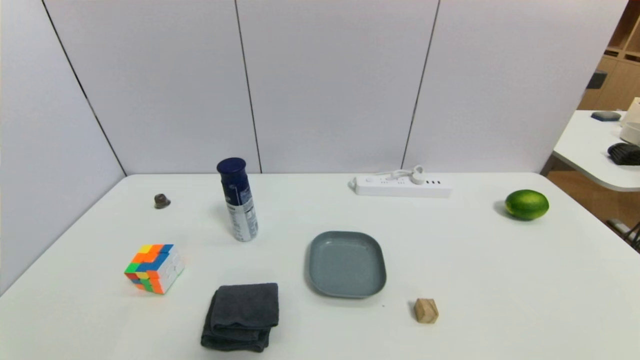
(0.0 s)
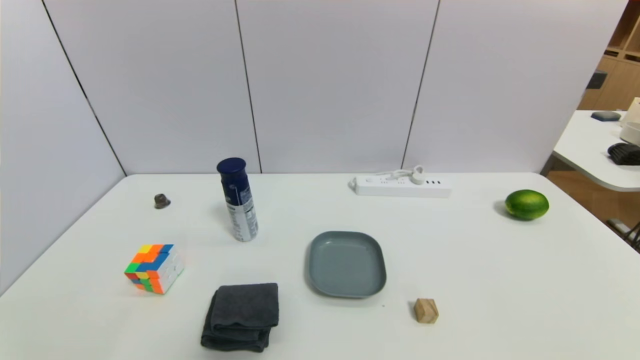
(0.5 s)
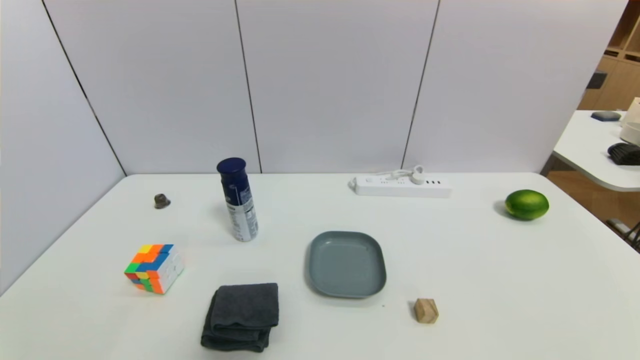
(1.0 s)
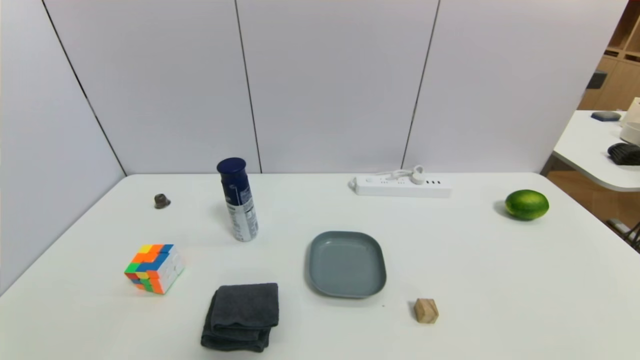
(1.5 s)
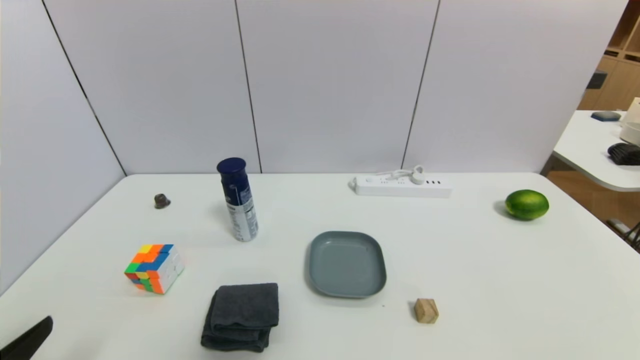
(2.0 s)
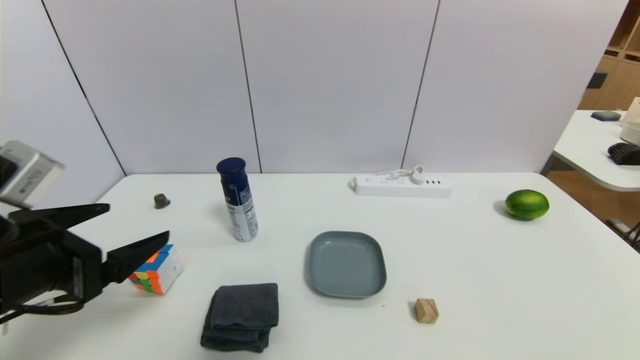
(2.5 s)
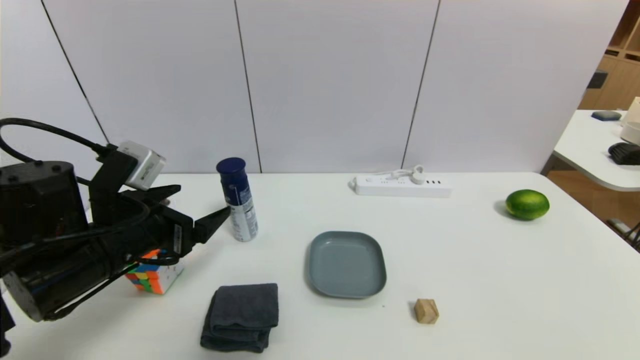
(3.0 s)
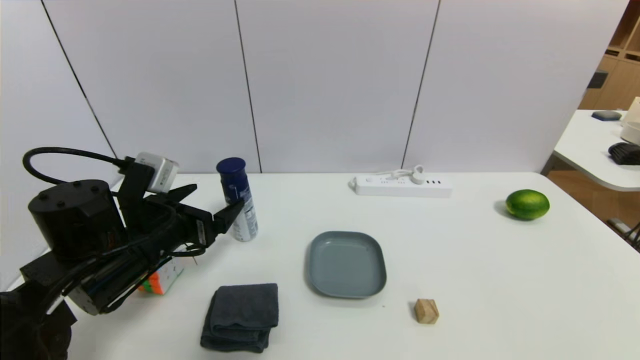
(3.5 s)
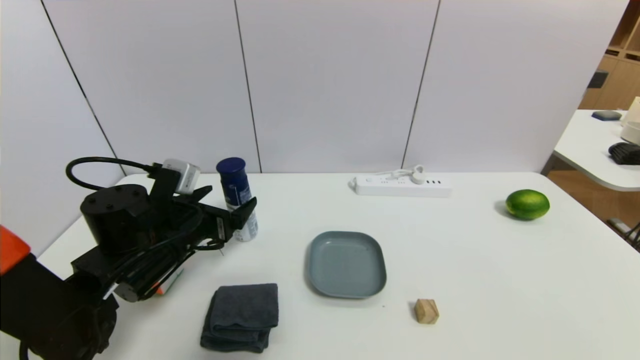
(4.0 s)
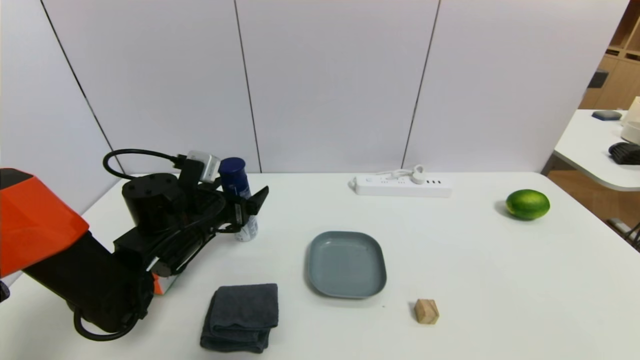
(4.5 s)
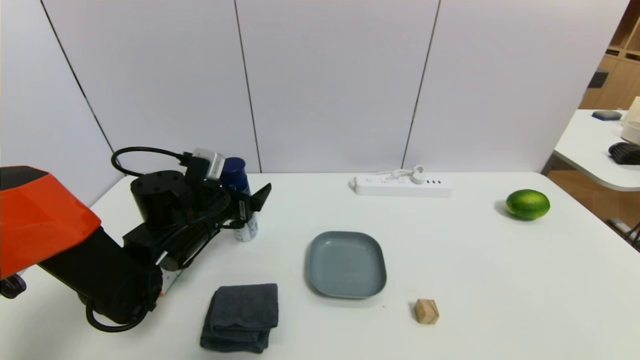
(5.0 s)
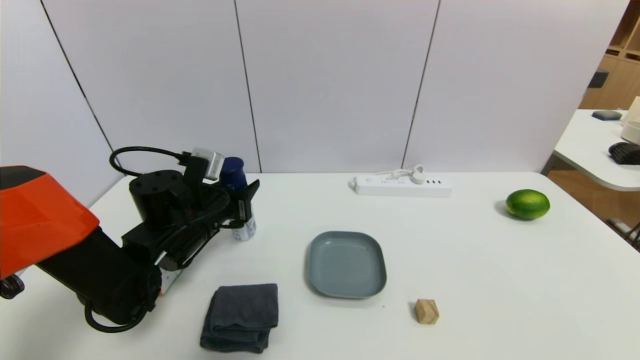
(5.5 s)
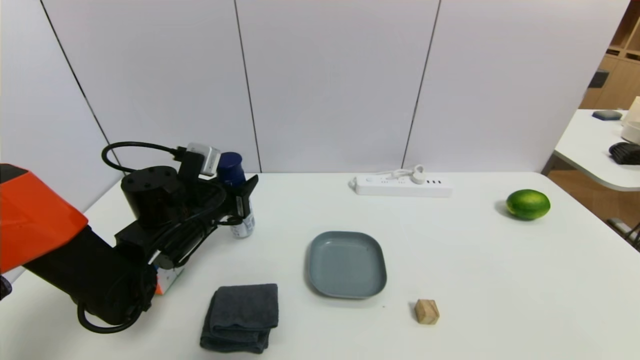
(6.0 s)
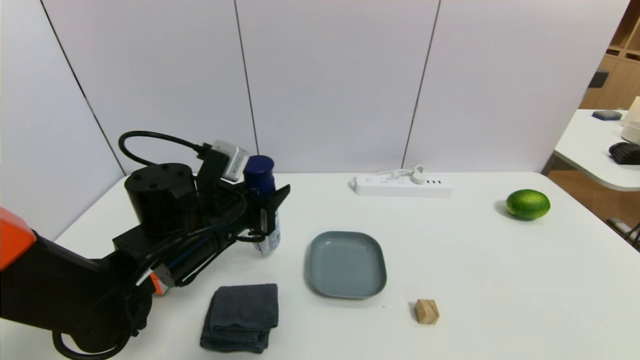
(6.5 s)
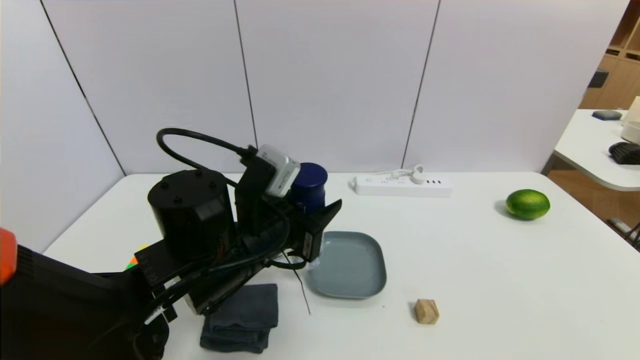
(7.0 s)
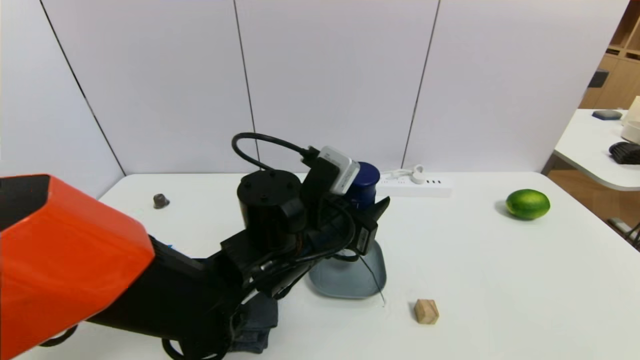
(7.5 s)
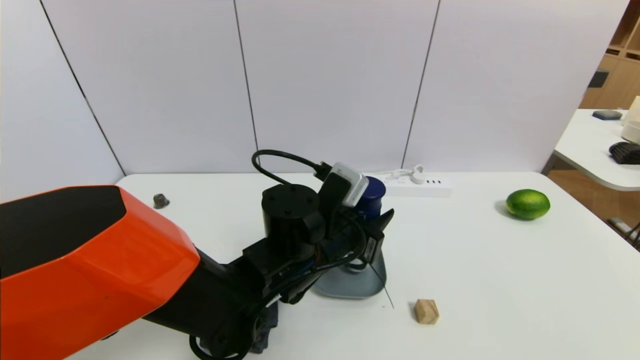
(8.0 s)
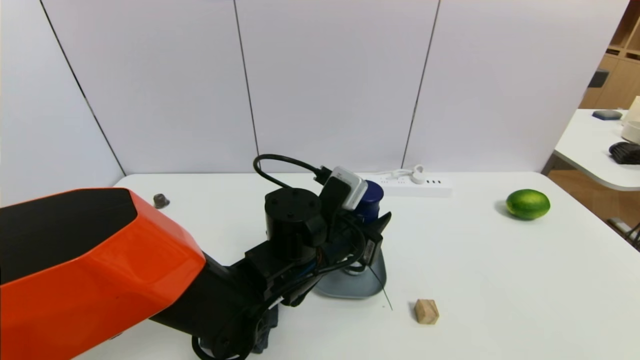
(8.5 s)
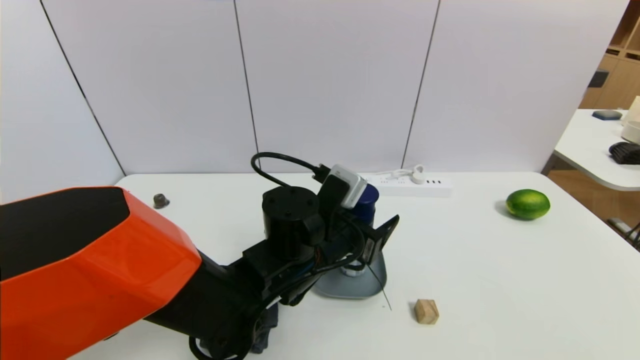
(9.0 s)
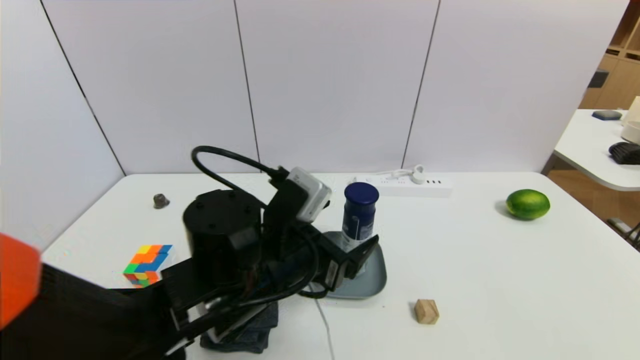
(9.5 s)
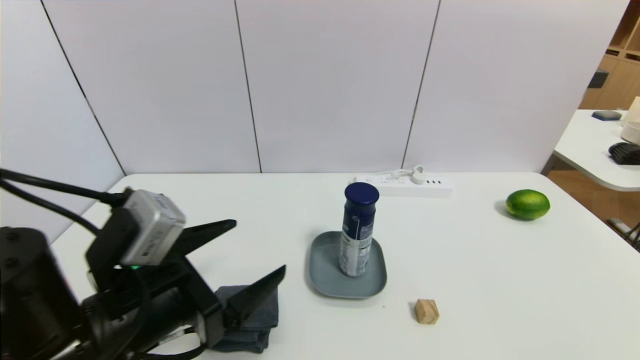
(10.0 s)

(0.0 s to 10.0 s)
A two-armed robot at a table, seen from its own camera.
Task of the whole recording: use a gripper to pick the target object and place on the dish.
Step, 0.0 s - 5.5 s: Grasp the yogurt with the left gripper.
Step, 6.0 s - 9.5 s: Place the yogurt on the dish with the left gripper.
2.0 s - 4.0 s: The left gripper travels forward by about 25 cm.
4.0 s - 6.0 s: The left gripper closes up.
6.0 s - 8.0 s: The left gripper shifts roughly 15 cm to the right.
8.0 s - 10.0 s: The left gripper goes about 20 cm to the left and backward, and opens.

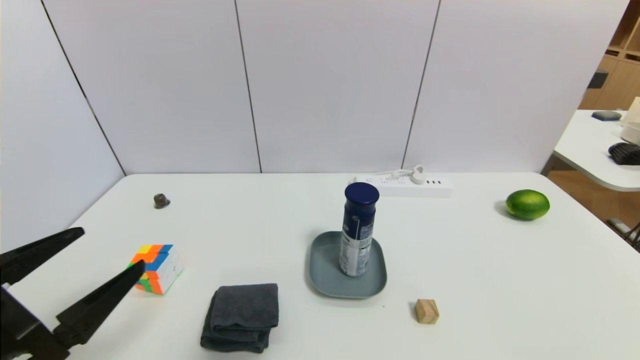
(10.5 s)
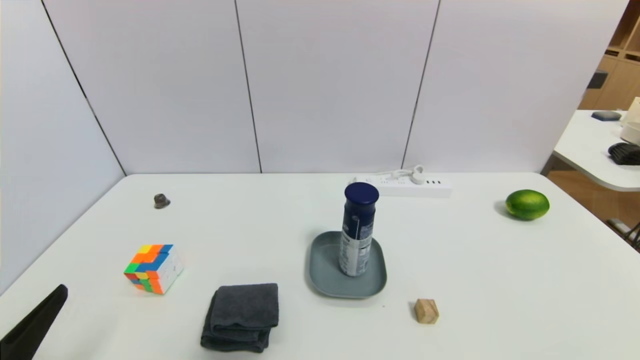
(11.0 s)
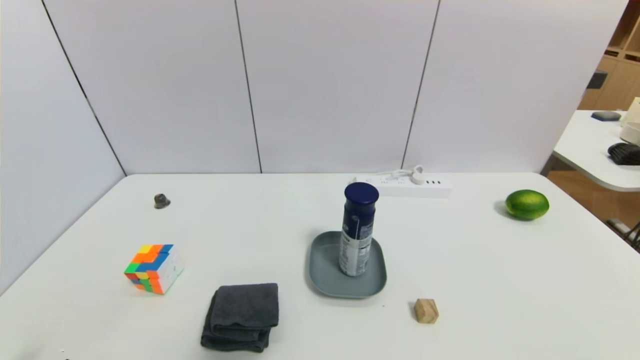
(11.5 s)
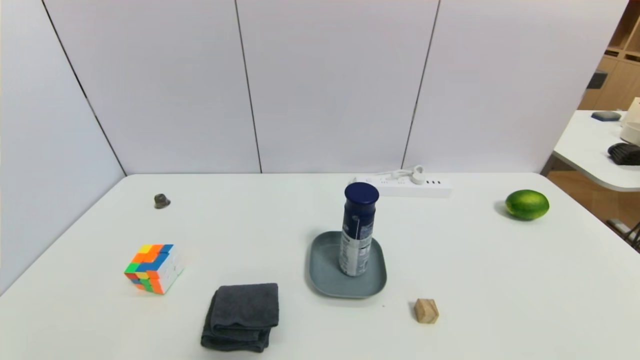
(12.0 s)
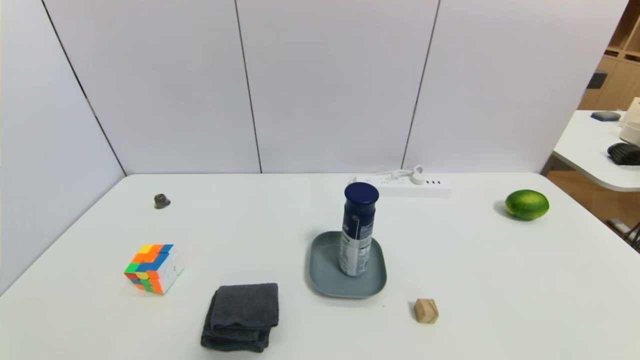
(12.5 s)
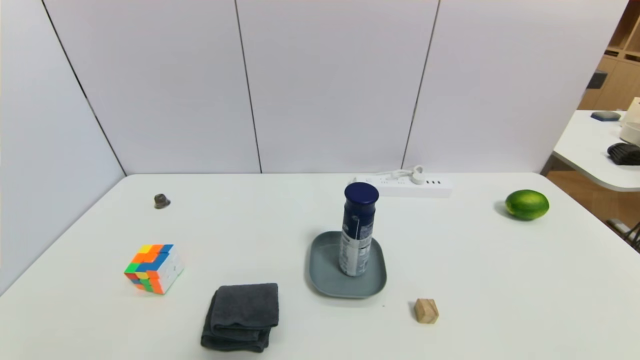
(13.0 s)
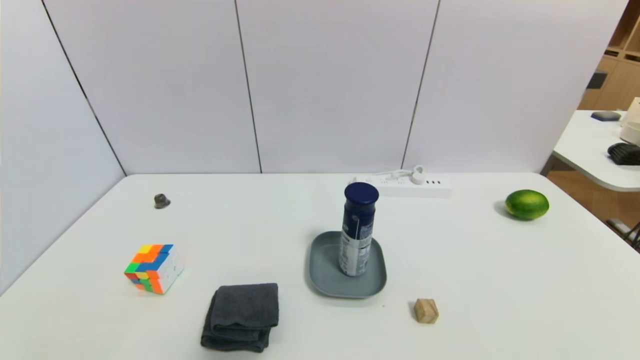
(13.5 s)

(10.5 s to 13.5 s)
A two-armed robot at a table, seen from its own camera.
Task of the whole recording: use a gripper to pick the target object and place on the dish.
10.5 s - 12.0 s: The left gripper shifts some 15 cm downward and backward.
